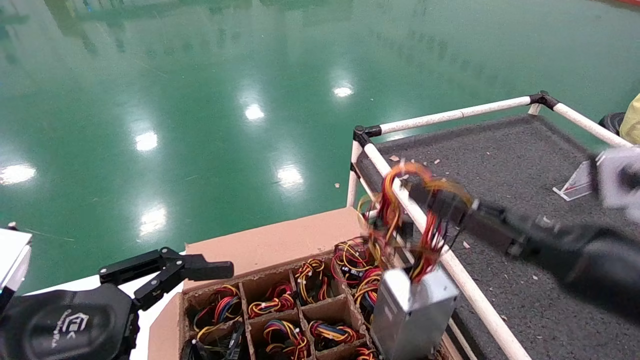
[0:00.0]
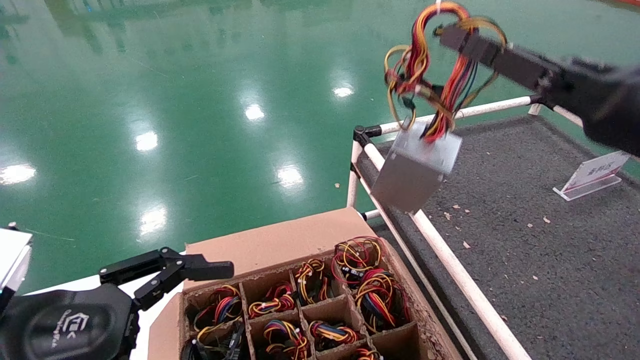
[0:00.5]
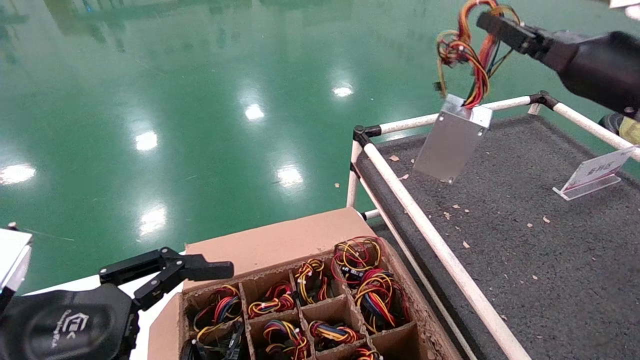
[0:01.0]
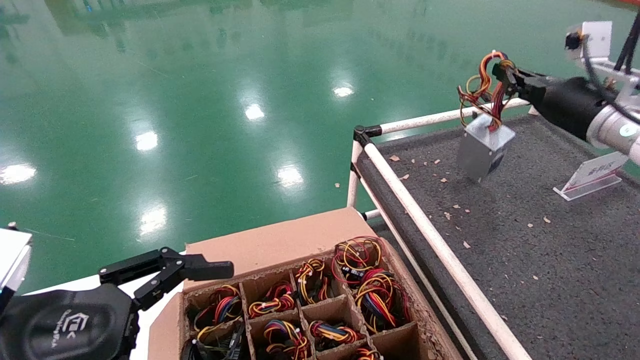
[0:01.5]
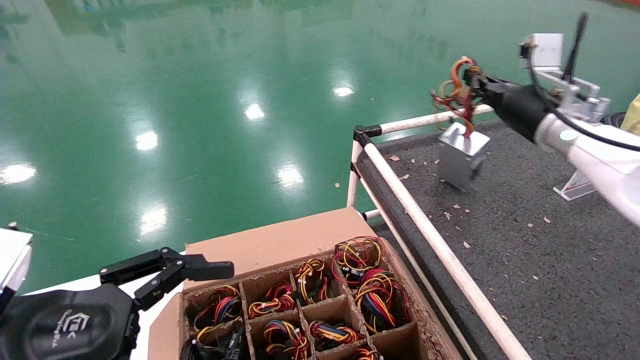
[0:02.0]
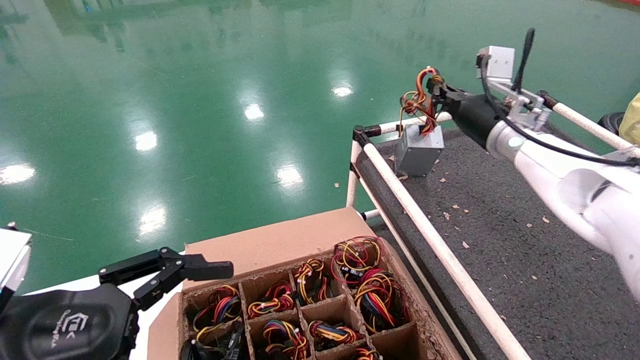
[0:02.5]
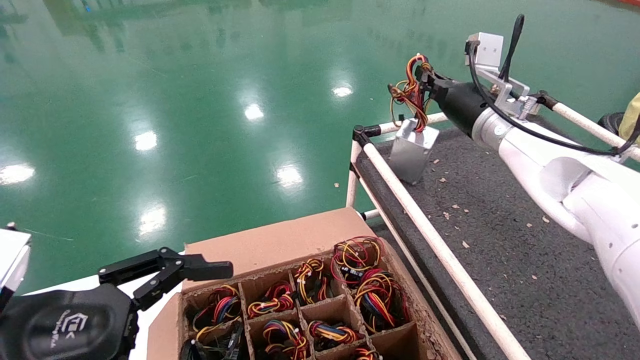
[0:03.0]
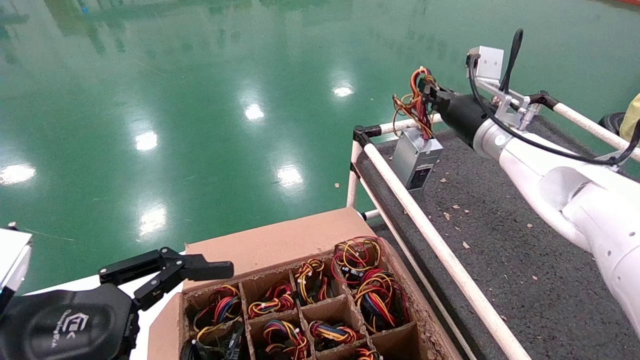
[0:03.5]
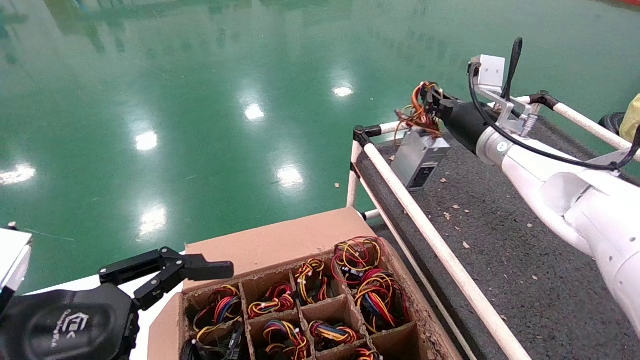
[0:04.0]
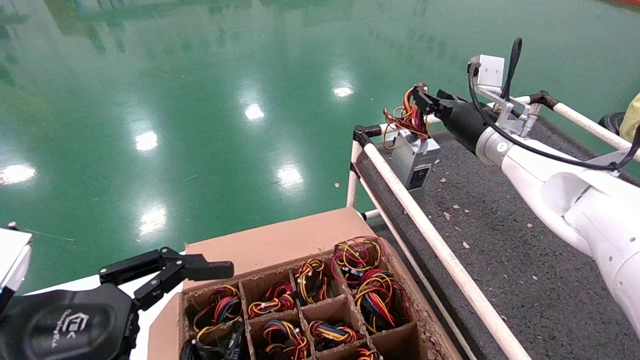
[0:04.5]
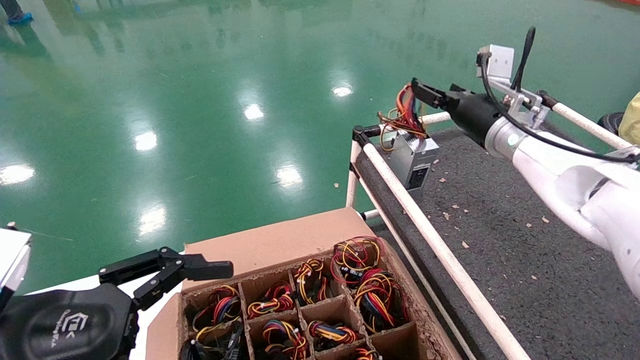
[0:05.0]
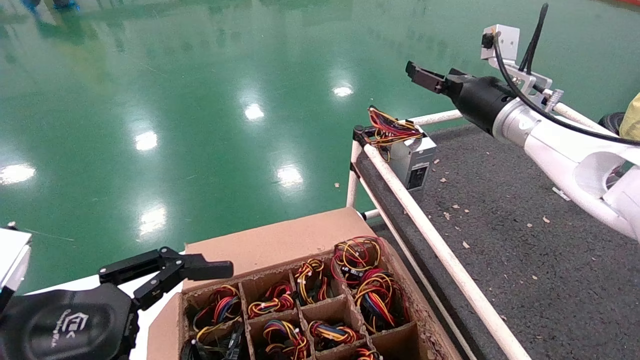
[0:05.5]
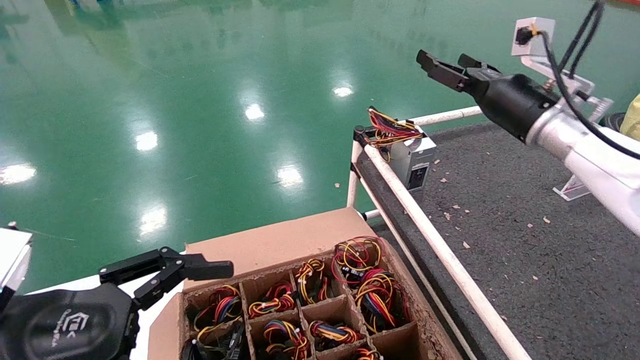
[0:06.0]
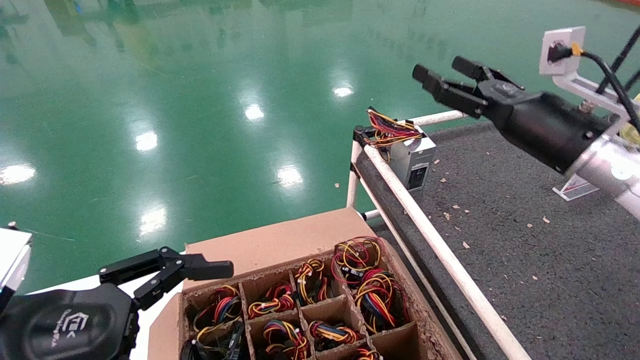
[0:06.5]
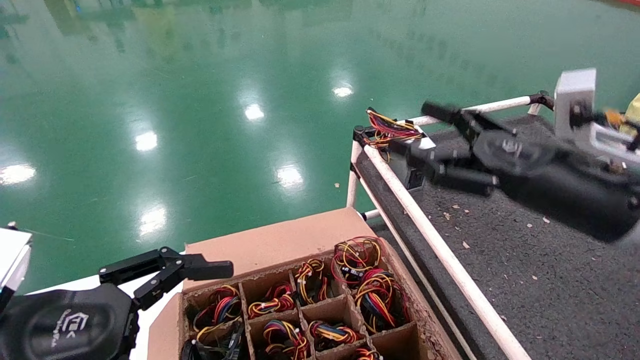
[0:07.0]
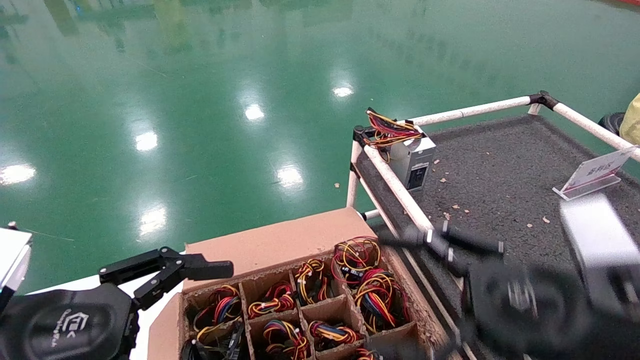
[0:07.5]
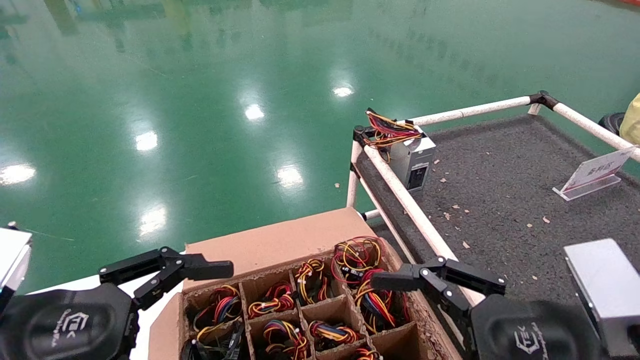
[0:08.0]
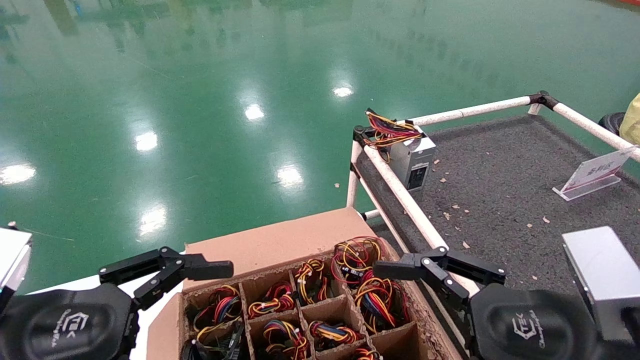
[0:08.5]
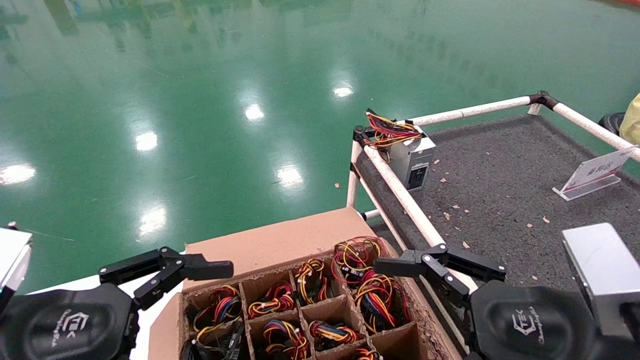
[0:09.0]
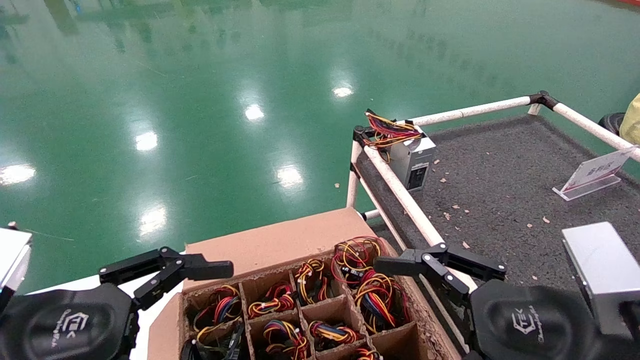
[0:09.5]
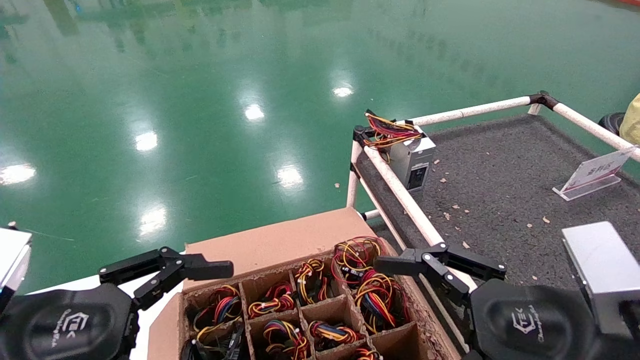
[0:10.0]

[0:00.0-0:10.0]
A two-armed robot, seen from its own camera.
Step, 0:00.0 to 0:05.0: Place the power supply on the operating table.
0:00.0 to 0:02.0: The right gripper moves forward and upward, about 25 cm.
0:02.0 to 0:04.0: The right gripper shifts some 5 cm to the left.
0:04.0 to 0:06.0: The right gripper travels backward by about 5 cm, and opens its fingers.
0:06.0 to 0:08.0: The right gripper heads backward and downward, covering some 30 cm.
0:08.0 to 0:10.0: Both grippers stay about where they are.
